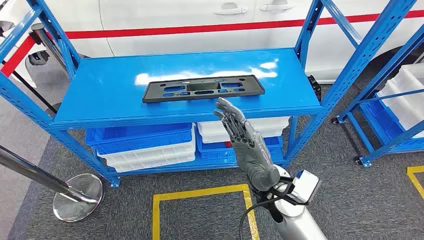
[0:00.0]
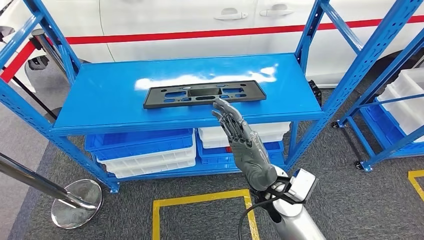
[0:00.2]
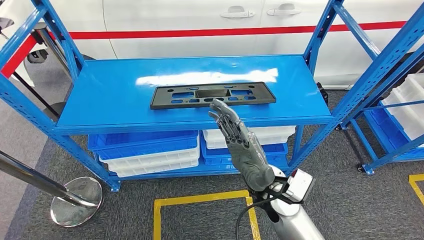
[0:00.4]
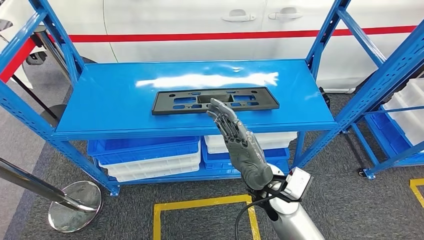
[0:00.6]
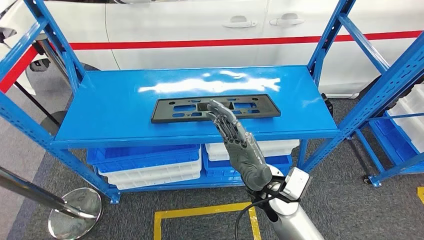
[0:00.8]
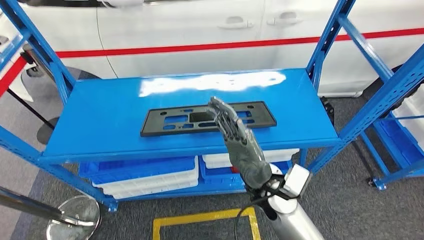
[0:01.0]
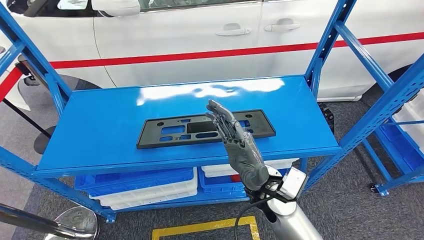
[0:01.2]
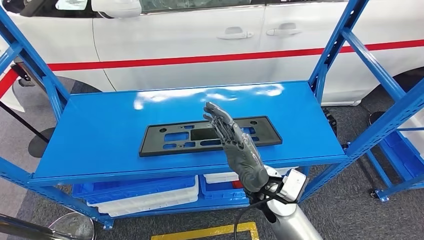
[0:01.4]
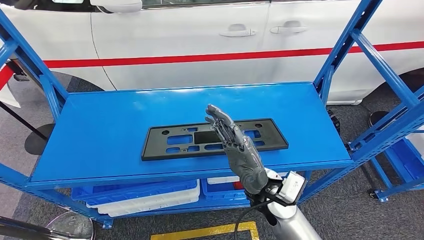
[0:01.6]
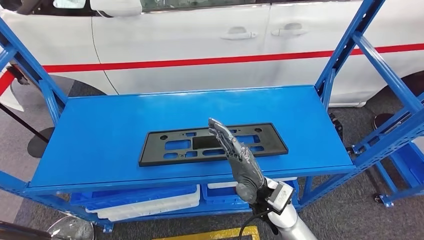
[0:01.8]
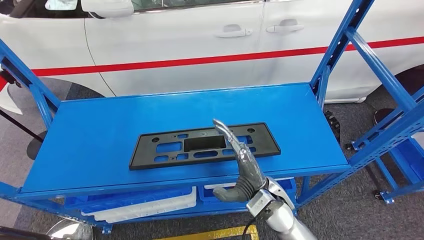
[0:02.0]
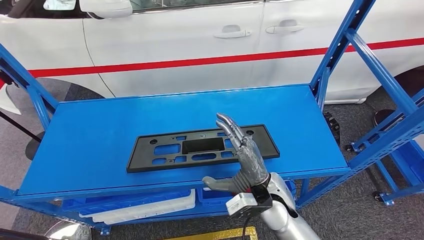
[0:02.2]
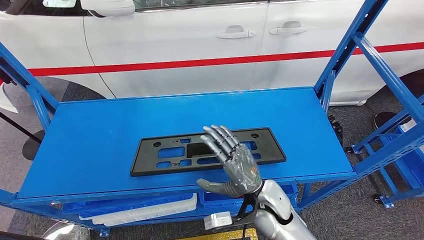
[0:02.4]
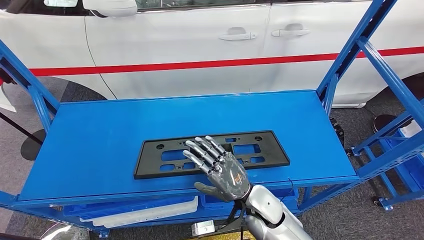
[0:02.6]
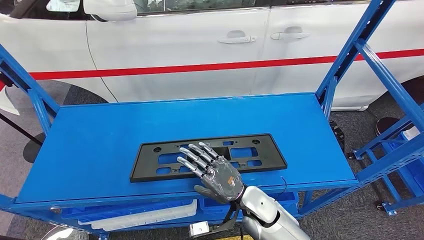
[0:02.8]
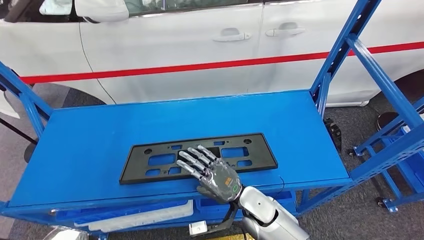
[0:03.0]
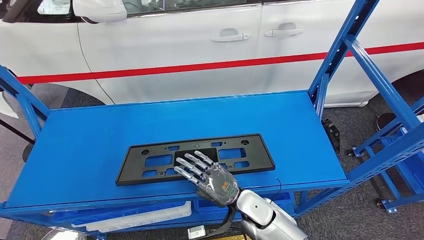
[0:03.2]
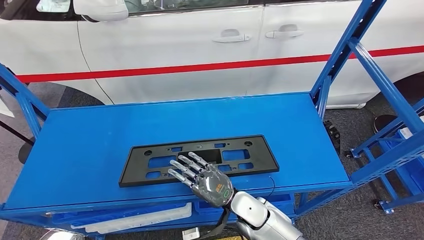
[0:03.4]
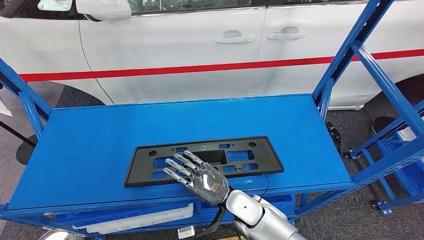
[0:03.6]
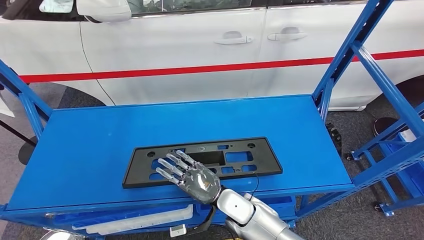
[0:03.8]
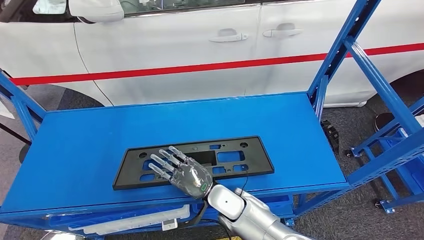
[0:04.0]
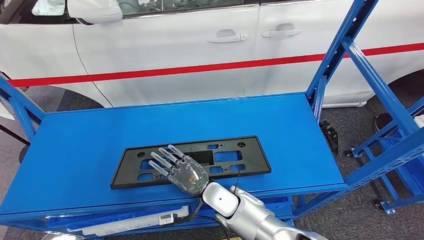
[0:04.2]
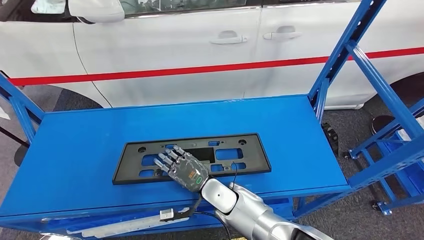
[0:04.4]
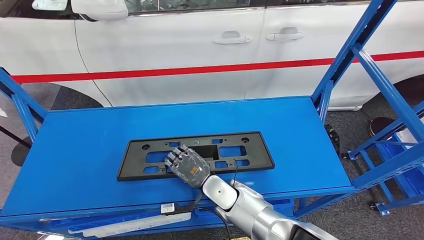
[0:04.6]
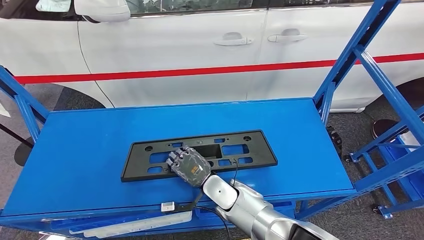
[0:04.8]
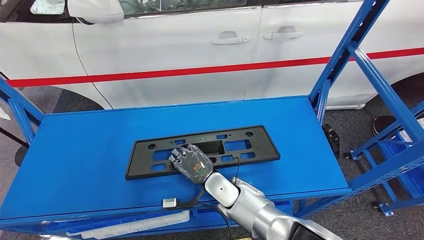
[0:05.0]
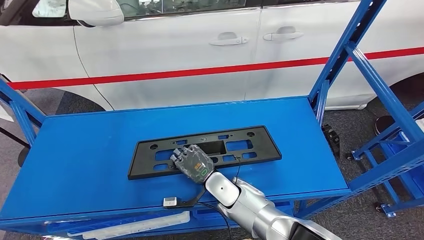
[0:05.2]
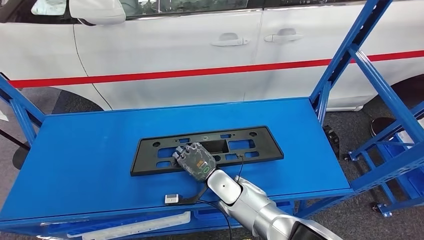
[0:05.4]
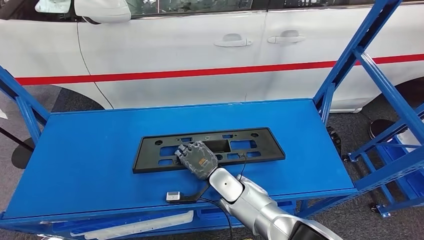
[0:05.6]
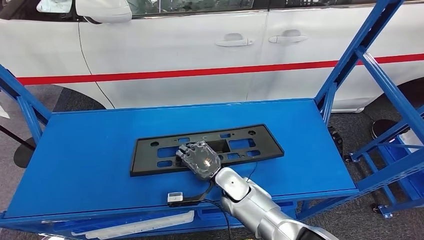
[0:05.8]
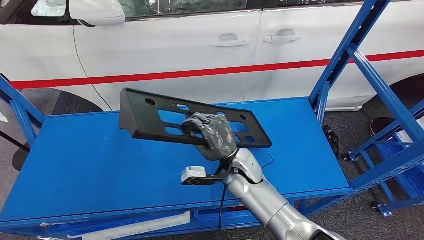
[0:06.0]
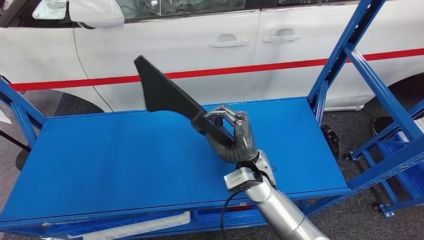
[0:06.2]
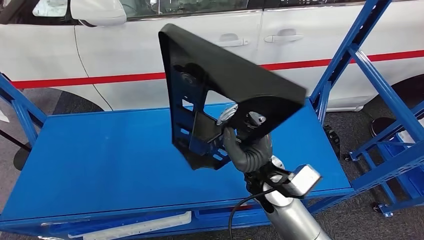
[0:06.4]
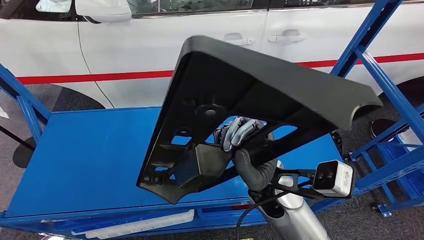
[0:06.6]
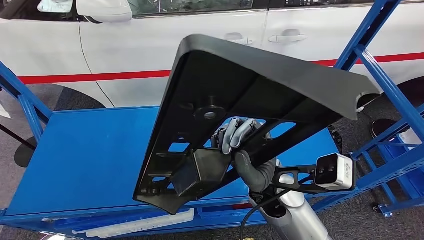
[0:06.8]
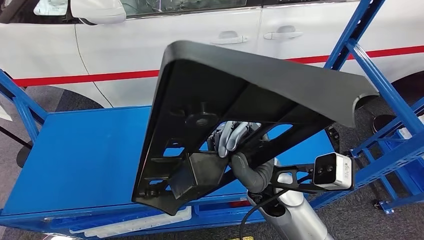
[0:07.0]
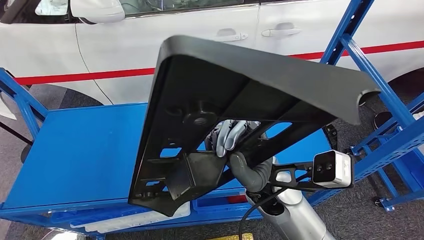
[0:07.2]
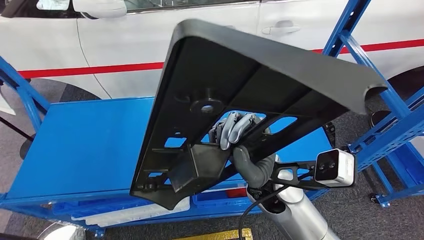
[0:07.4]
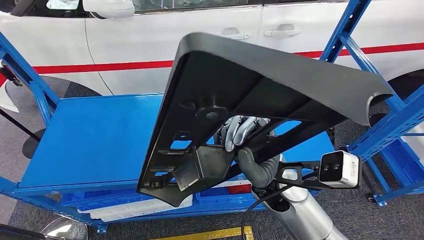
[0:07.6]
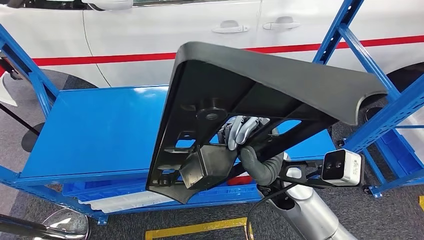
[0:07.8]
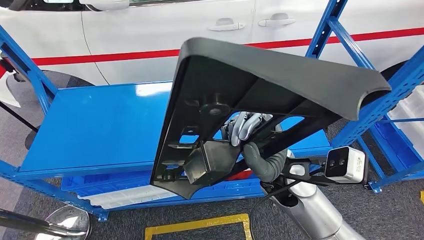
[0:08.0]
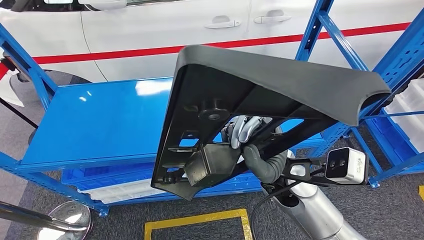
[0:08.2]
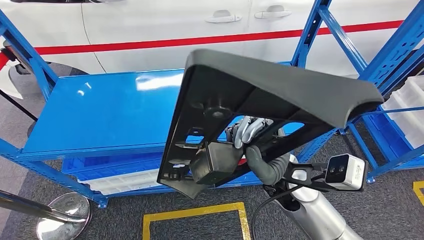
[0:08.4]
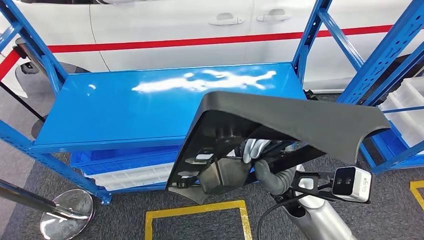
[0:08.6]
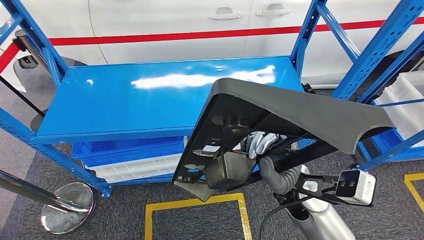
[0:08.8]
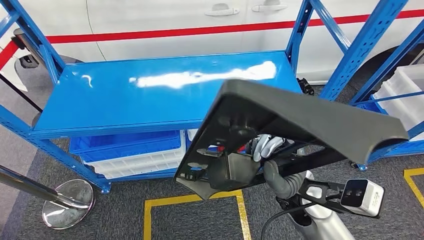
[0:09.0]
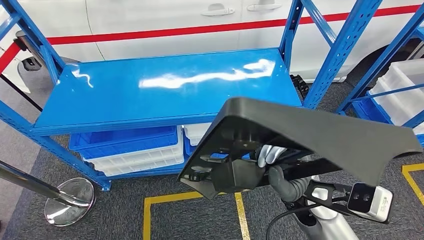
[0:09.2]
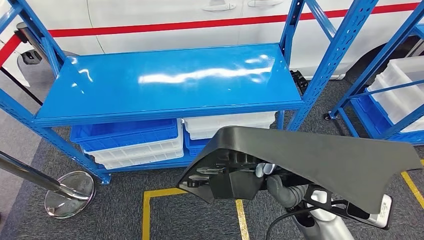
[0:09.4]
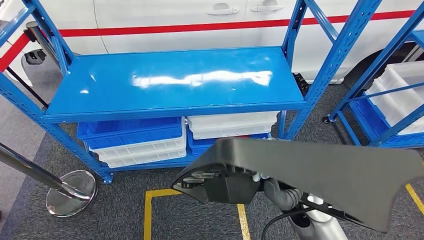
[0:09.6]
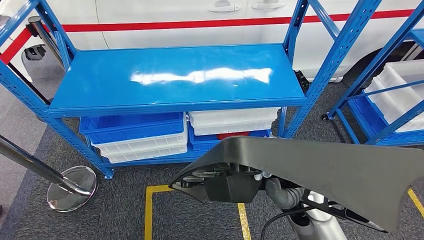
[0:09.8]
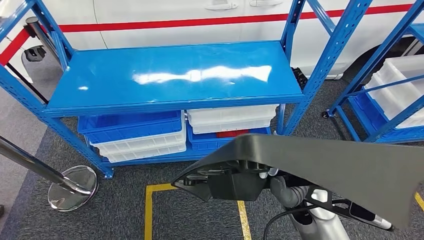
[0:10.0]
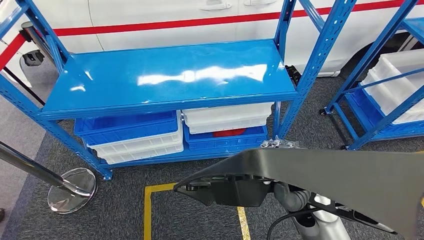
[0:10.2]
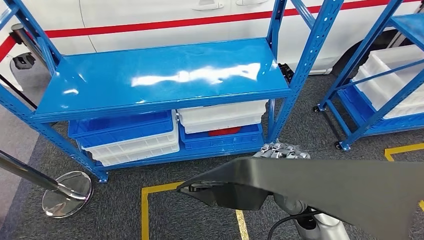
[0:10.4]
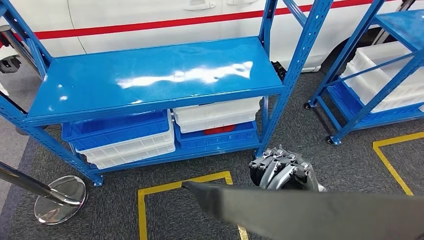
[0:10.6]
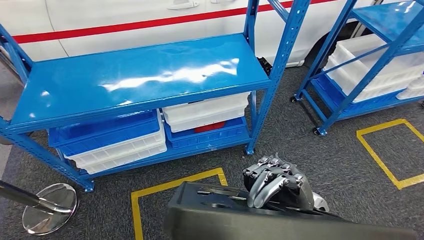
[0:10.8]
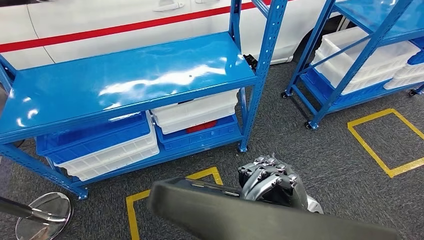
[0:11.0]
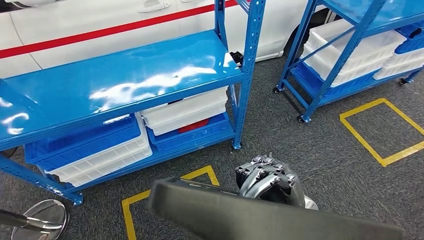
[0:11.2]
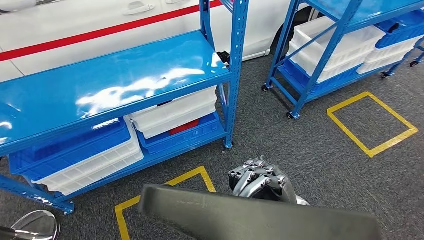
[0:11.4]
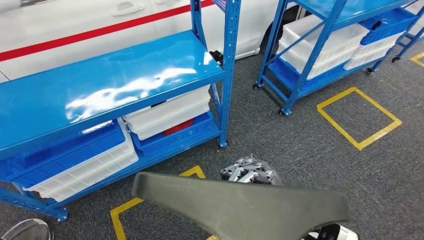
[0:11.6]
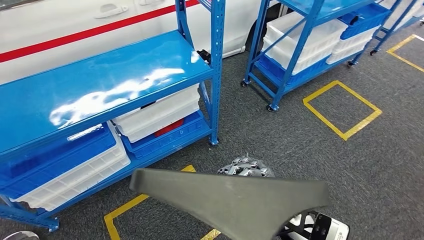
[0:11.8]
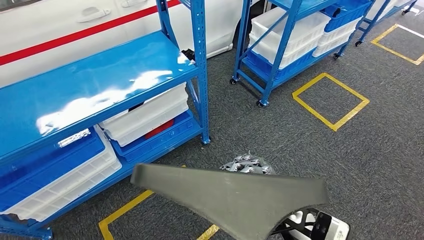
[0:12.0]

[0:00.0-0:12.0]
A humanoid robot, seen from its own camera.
Step, 0:00.0 to 0:07.6: Pick up the large material from the shelf.

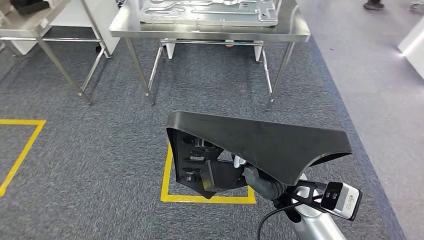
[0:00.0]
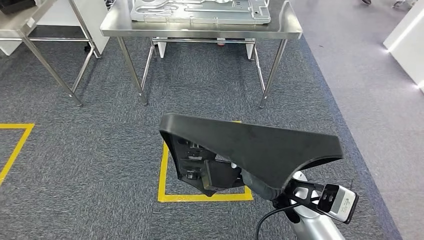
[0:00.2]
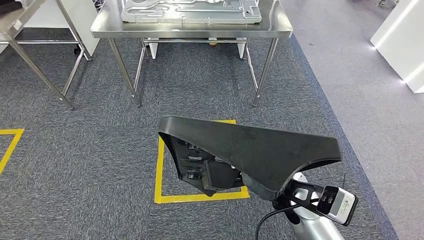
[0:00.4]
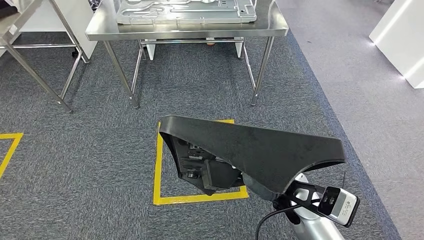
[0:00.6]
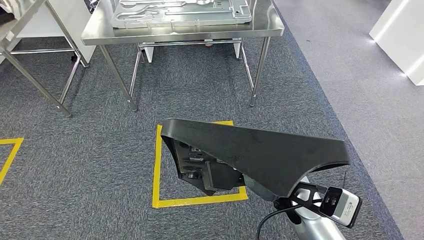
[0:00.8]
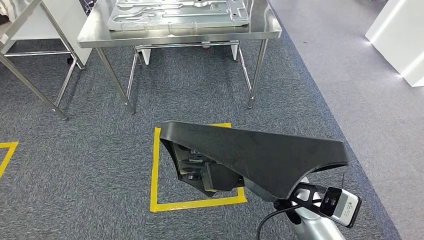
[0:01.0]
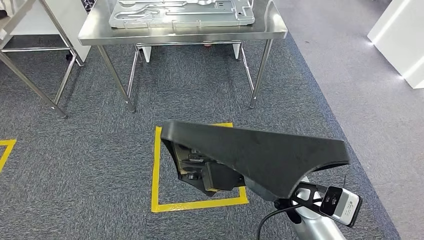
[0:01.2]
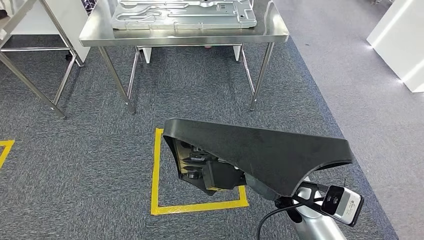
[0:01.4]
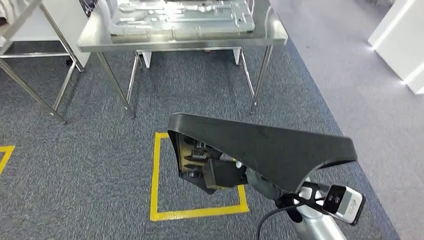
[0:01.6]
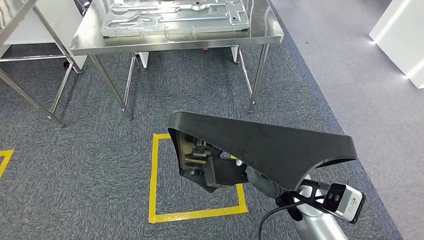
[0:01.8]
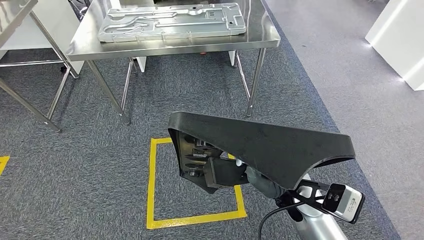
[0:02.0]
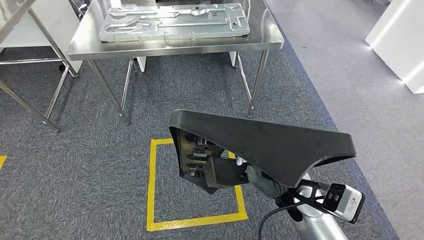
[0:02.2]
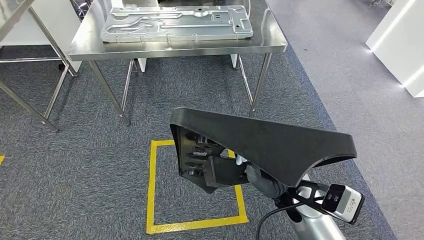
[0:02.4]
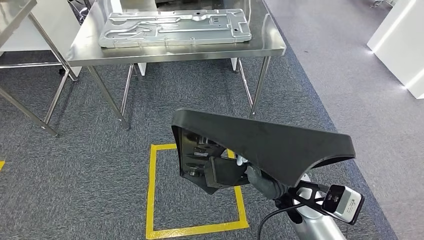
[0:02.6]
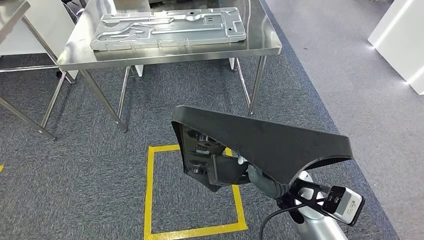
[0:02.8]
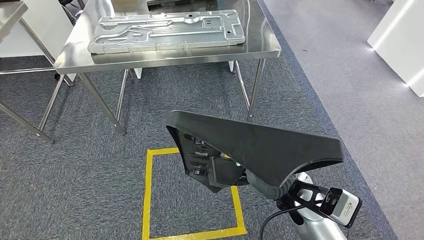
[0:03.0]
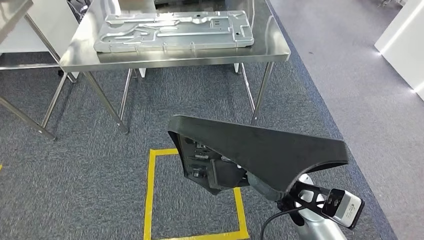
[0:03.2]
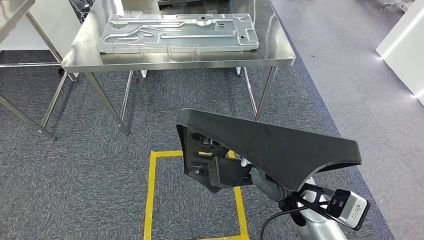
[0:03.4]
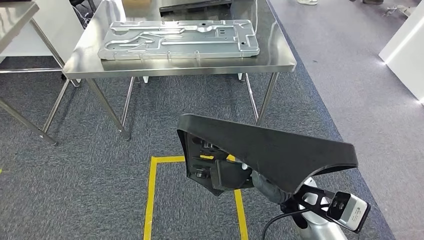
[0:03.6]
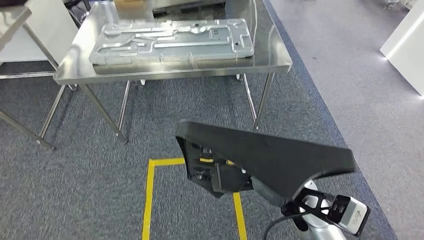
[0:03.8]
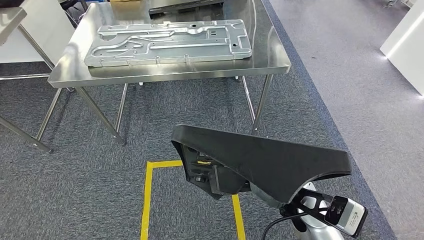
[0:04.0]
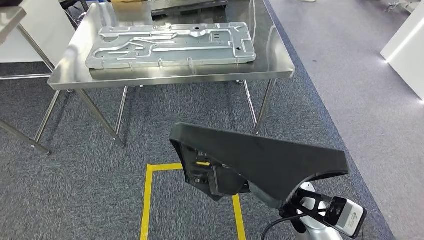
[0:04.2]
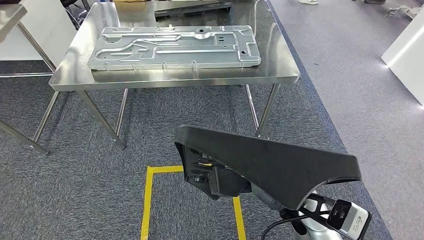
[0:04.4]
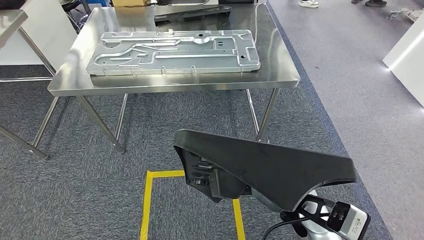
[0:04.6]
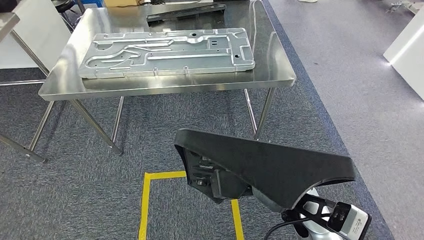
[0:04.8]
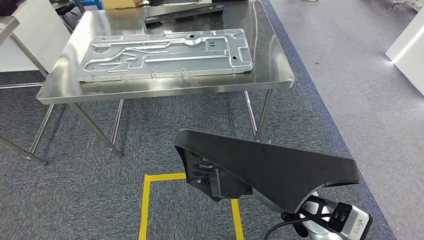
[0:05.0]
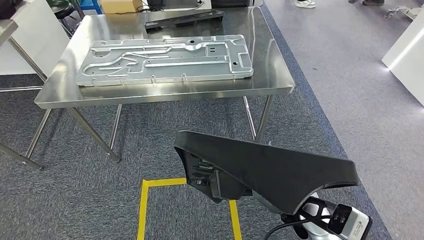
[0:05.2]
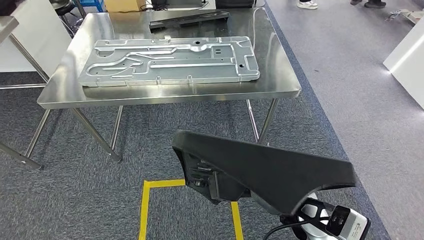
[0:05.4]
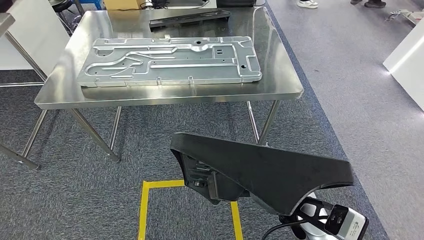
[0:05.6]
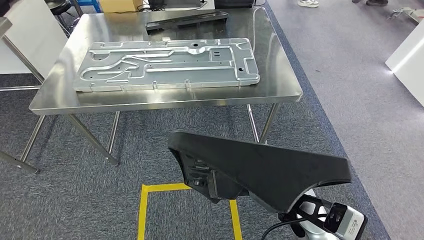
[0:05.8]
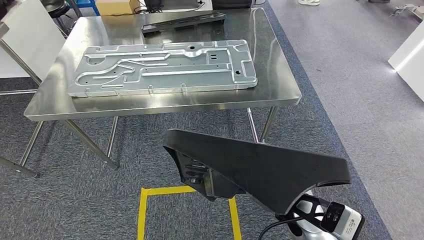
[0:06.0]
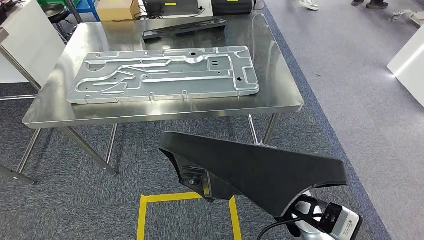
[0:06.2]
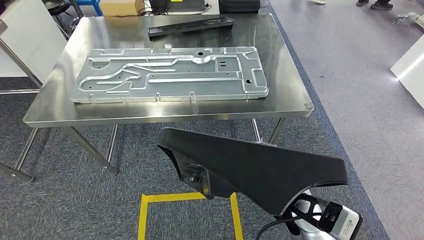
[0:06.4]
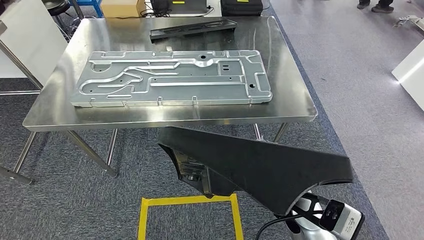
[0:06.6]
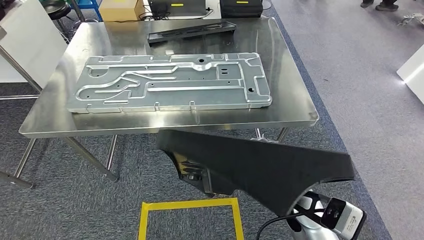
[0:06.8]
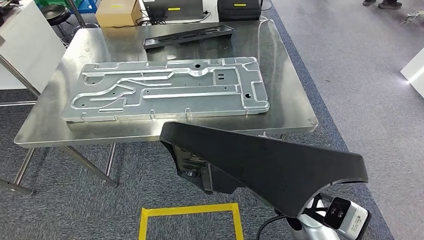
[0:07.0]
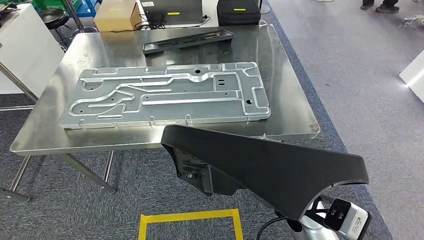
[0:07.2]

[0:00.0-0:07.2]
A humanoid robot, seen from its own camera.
Step, 0:00.0 to 0:06.8: Move the large material to the workbench.
